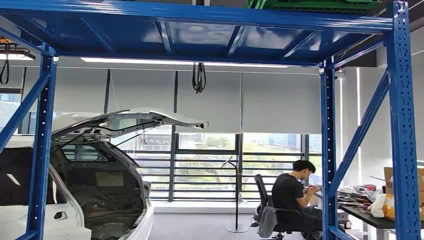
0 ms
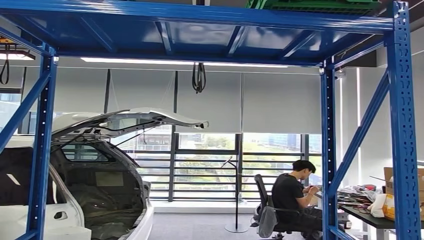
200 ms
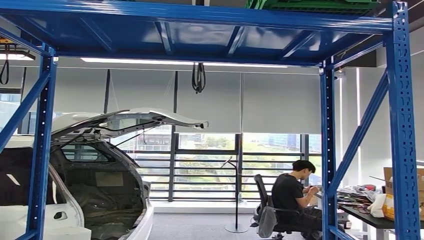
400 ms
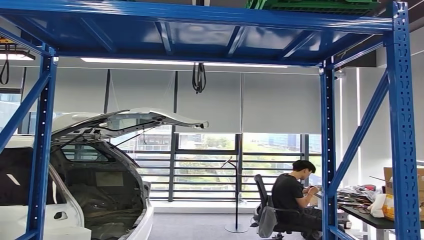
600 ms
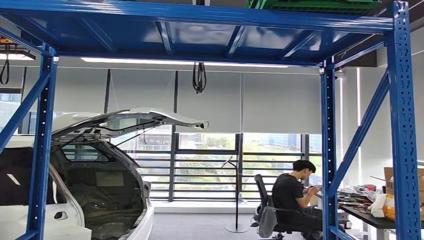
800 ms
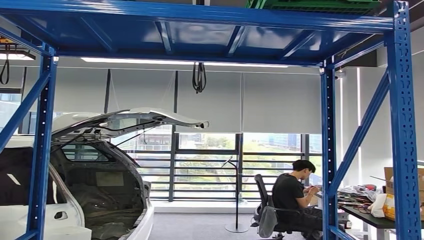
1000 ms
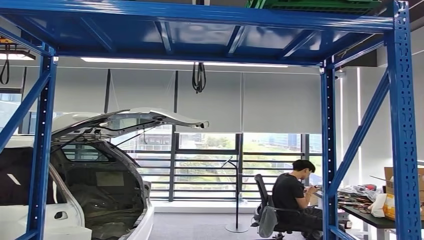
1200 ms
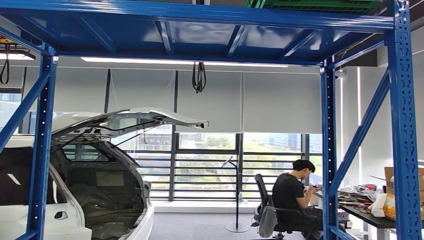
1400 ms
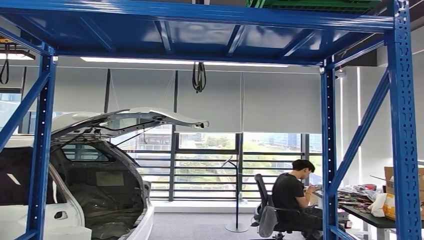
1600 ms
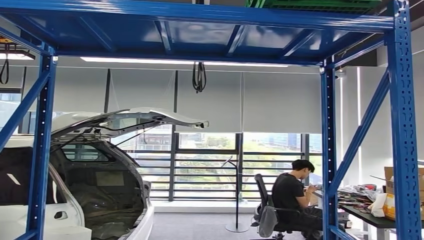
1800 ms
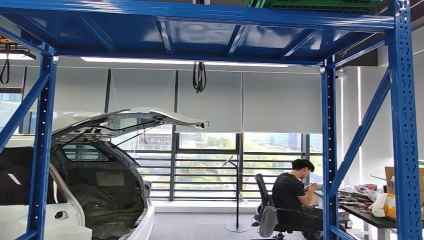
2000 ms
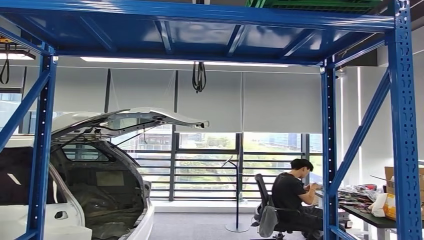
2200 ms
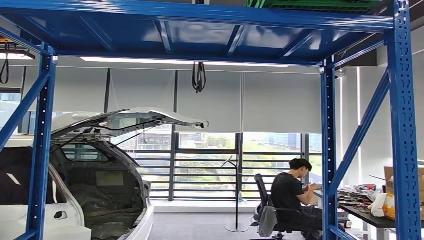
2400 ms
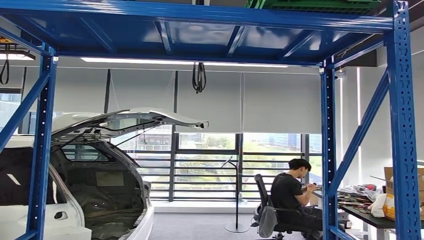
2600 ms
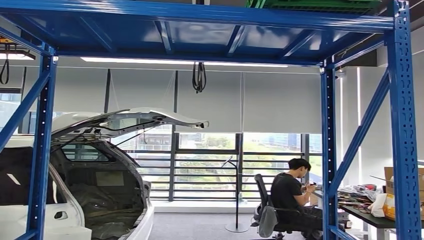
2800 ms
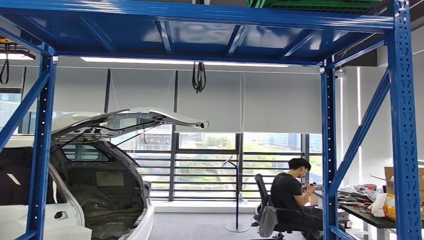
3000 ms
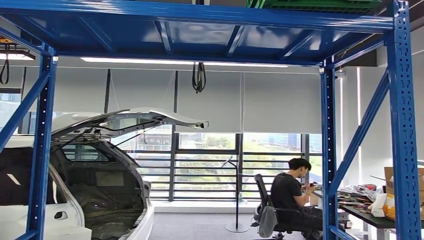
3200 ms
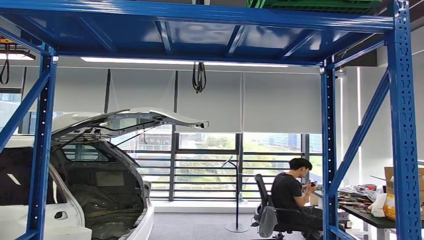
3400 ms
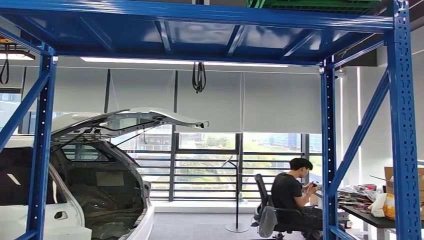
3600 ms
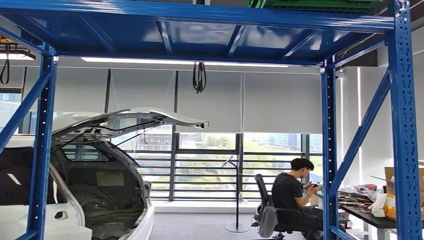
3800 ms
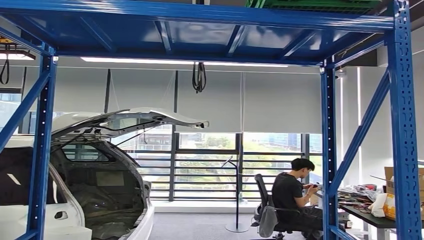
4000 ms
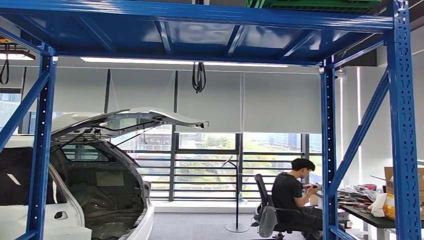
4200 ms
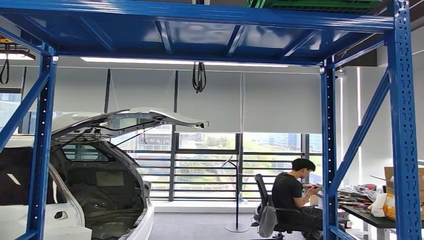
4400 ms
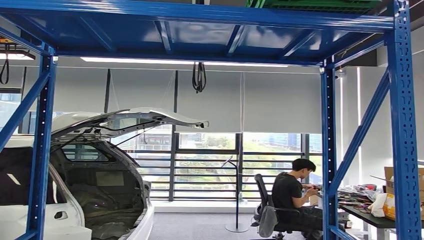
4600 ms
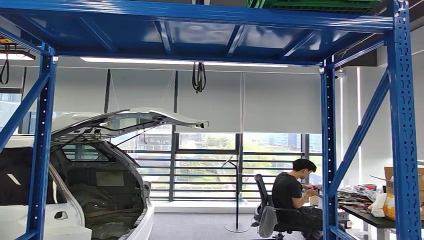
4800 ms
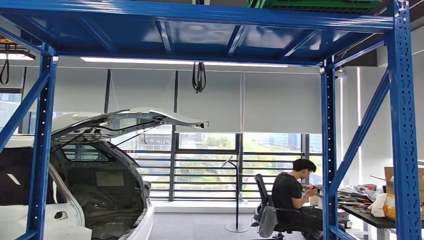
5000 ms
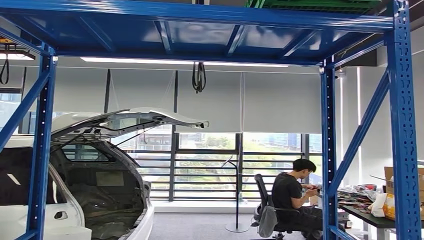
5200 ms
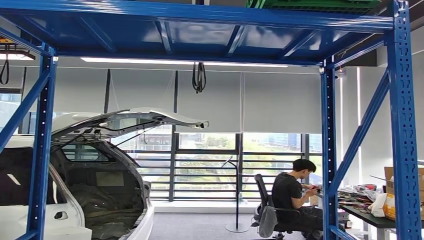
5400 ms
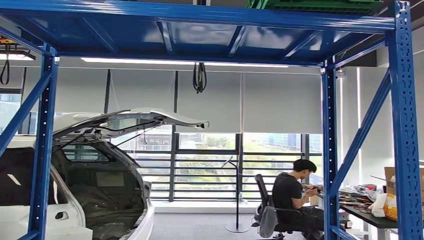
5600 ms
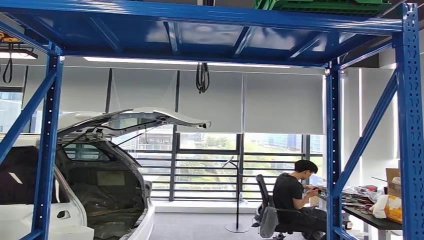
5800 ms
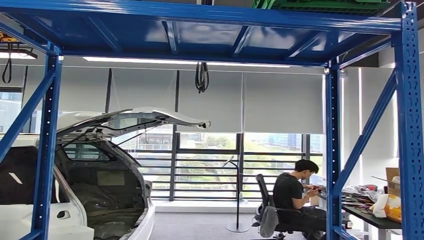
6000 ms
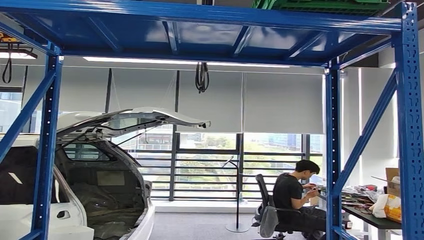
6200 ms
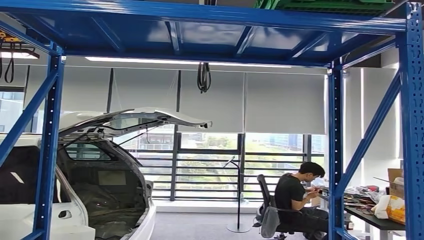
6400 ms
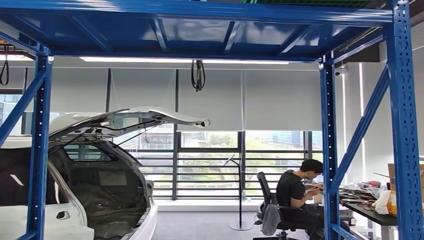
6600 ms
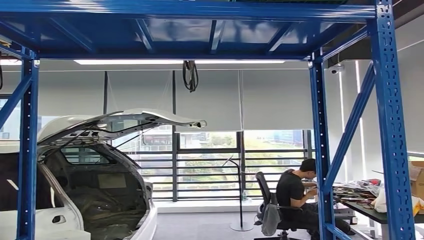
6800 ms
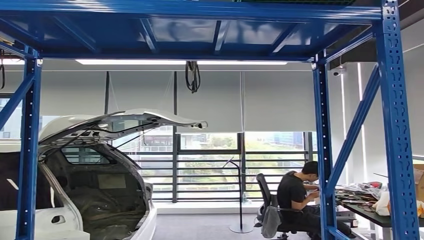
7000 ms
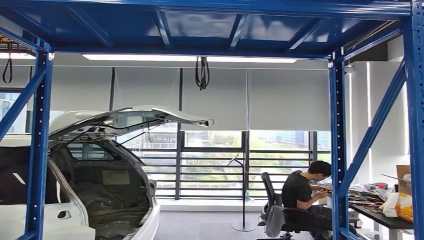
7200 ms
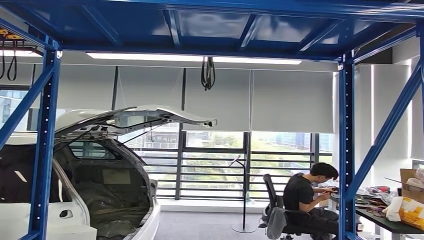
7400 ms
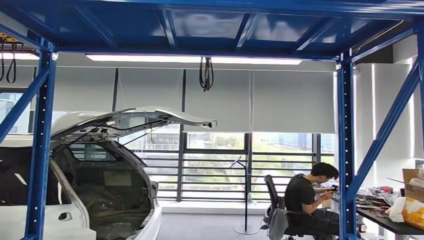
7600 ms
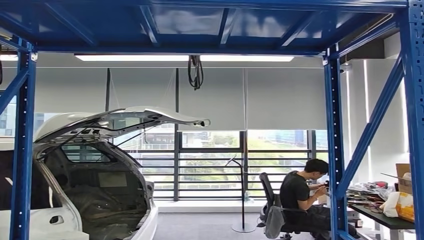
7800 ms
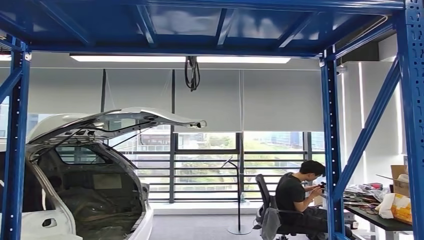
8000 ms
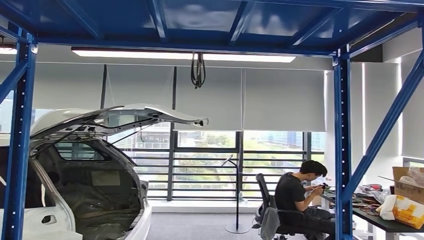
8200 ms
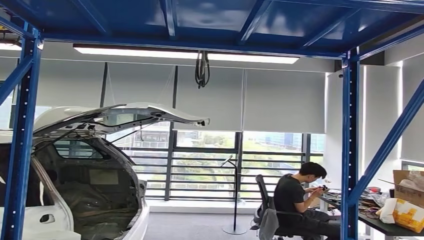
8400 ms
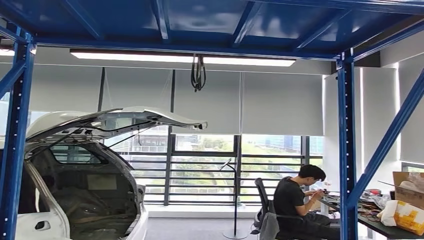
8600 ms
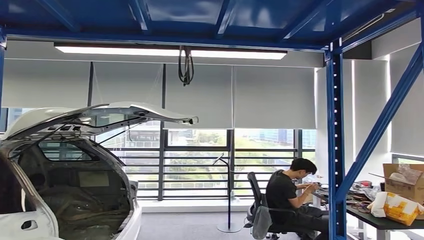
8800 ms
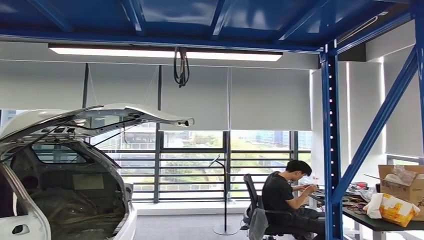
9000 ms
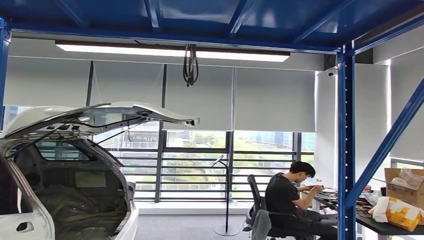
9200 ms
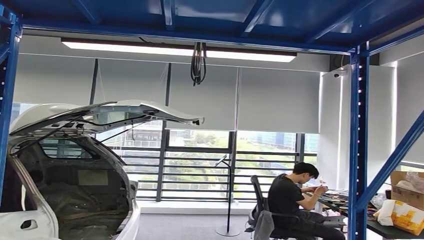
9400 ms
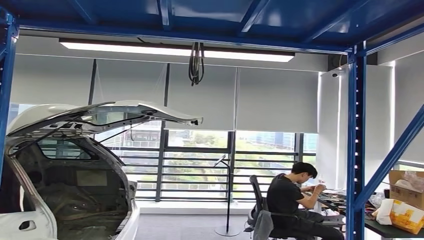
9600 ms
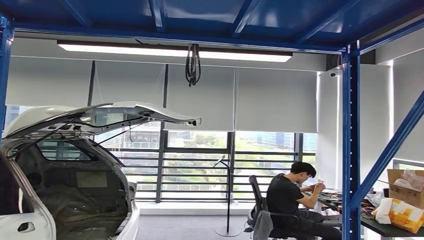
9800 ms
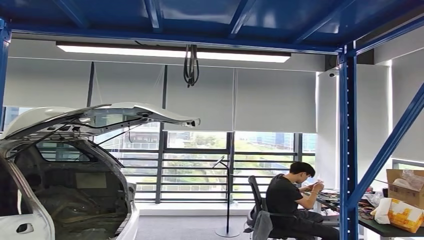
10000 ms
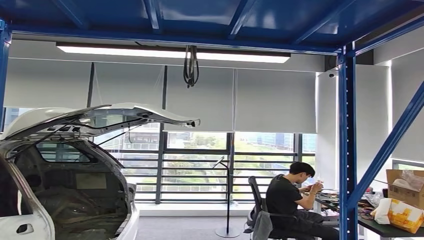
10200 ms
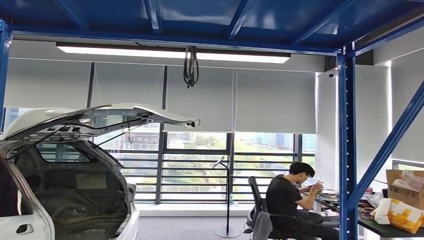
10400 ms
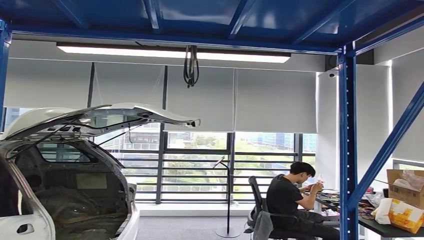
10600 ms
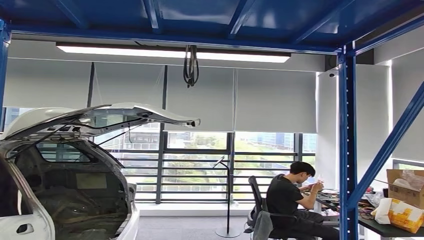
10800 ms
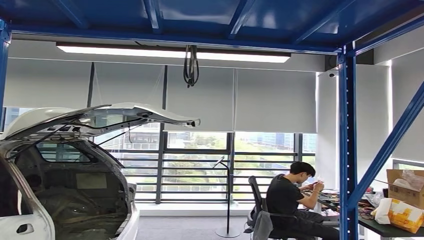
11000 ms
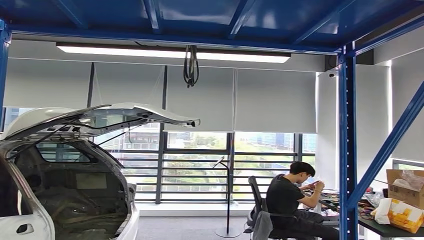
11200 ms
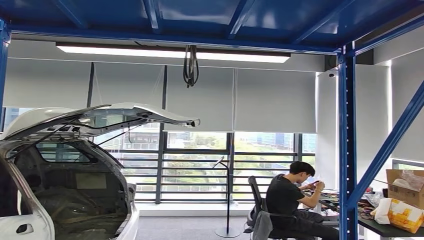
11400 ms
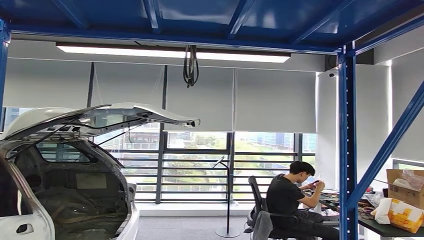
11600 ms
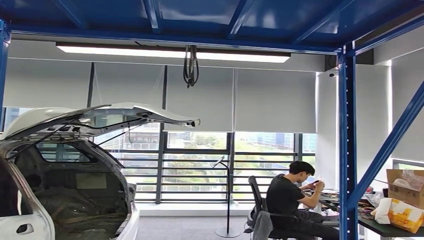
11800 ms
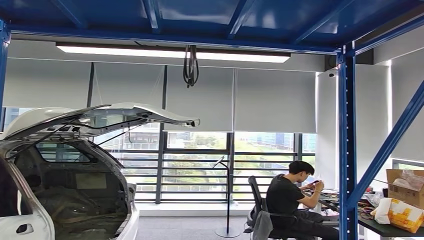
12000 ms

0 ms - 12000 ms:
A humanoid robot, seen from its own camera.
1600 ms - 3000 ms: The right hand moves upward and to the left, some 20 cm.
10400 ms - 12000 ms: The right hand is displaced forward and to the left by about 15 cm.

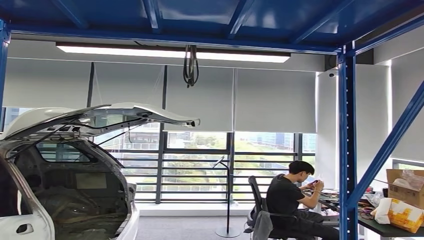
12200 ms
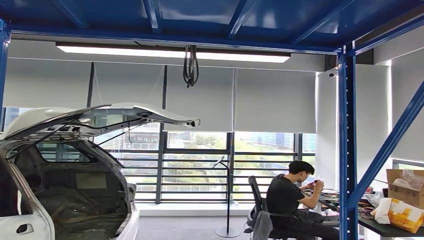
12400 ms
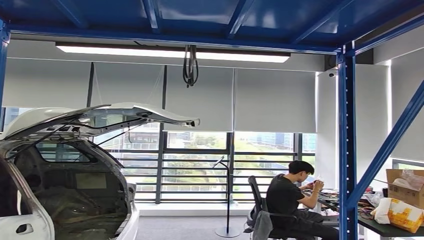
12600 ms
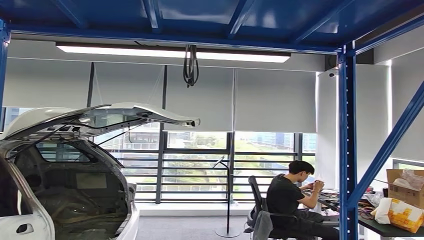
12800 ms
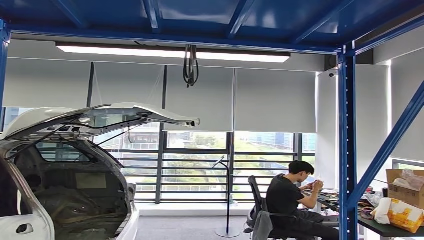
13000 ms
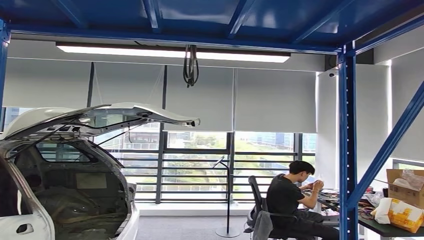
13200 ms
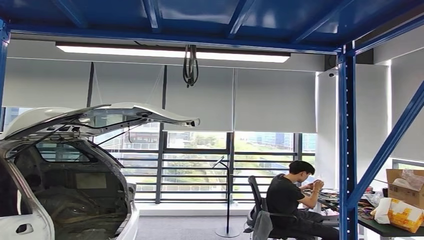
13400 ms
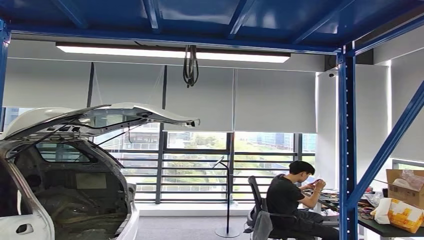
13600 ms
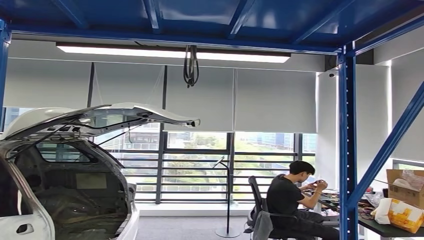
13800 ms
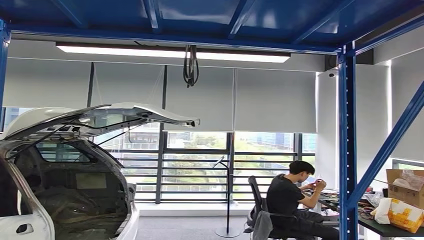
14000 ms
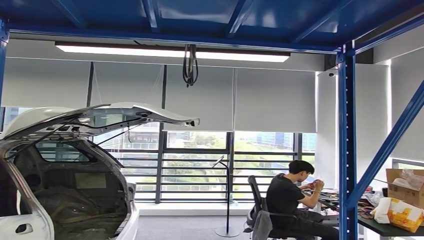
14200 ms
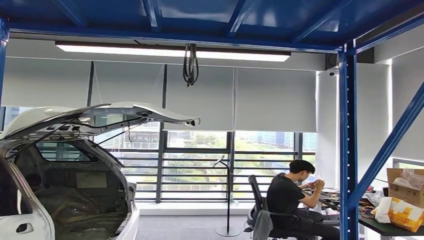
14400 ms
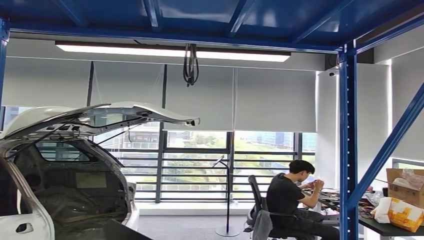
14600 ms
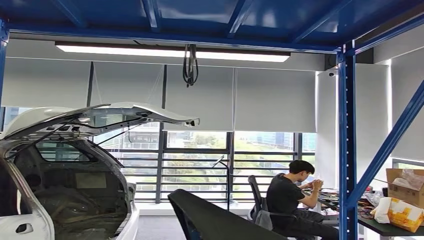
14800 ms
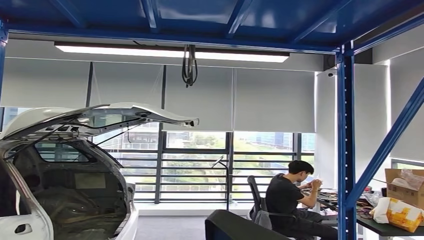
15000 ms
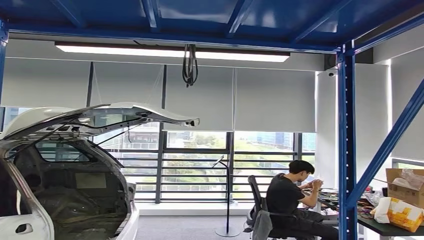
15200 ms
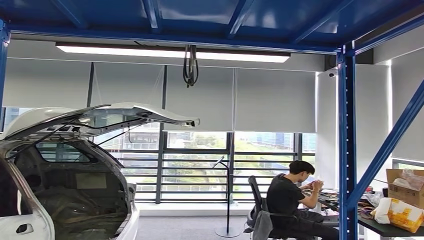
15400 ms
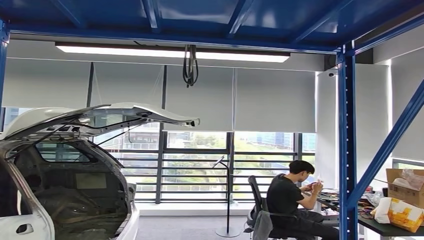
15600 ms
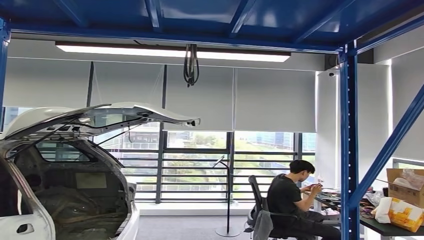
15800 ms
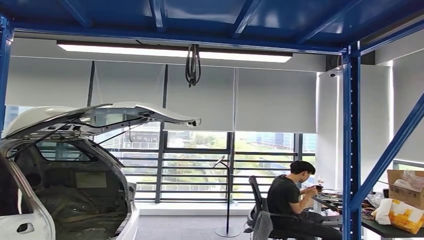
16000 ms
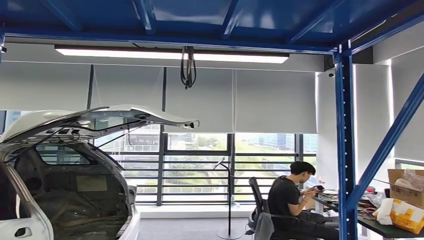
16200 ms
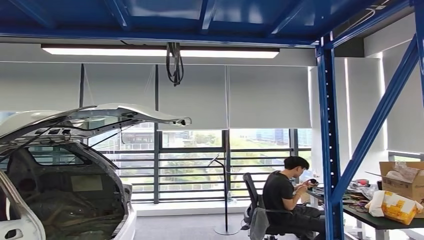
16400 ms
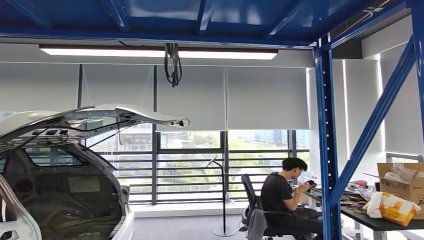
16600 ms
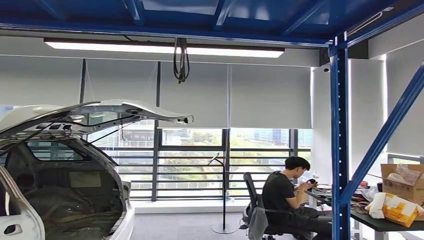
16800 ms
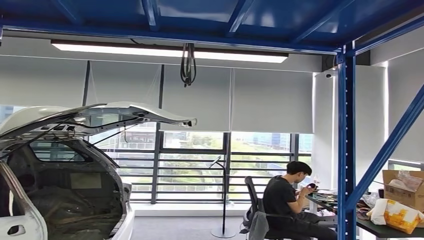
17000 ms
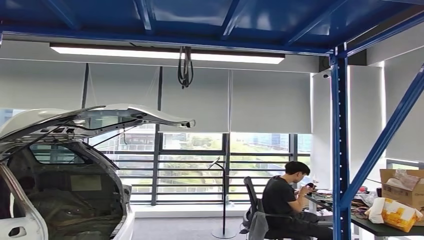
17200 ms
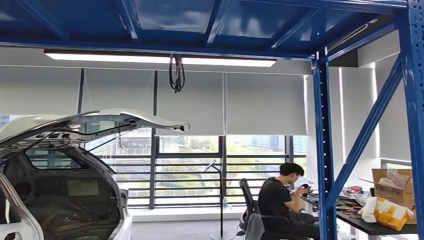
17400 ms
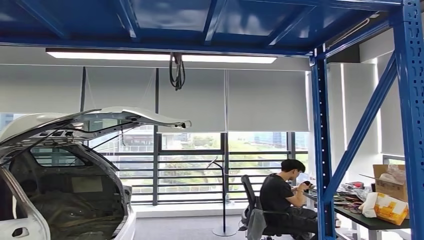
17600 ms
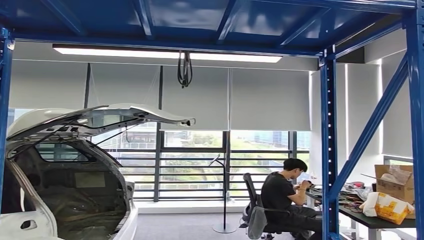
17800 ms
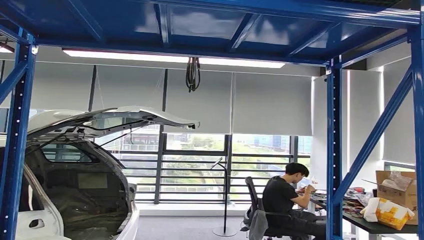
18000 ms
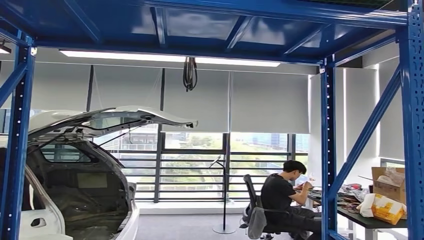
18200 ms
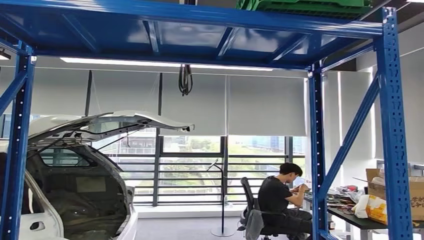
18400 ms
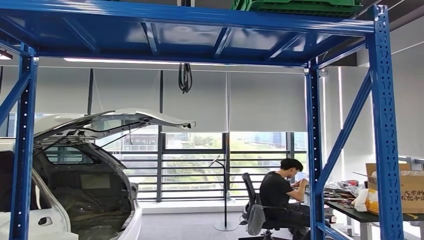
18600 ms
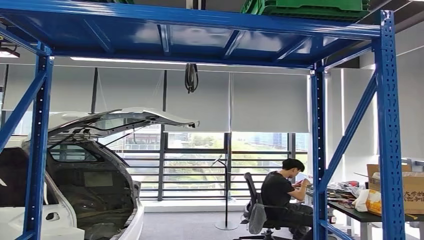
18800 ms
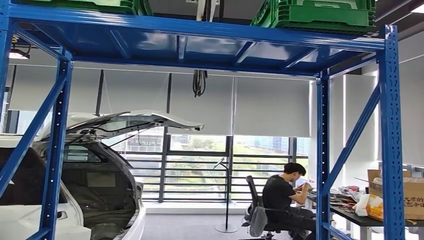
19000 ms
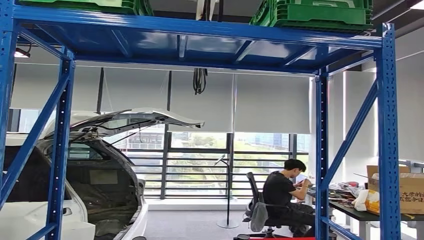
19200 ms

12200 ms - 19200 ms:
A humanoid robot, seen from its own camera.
13600 ms - 15000 ms: The right hand is displaced backward, upward and to the right by approximately 15 cm.
